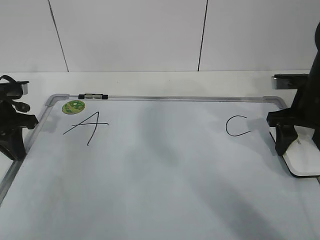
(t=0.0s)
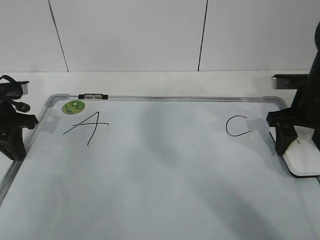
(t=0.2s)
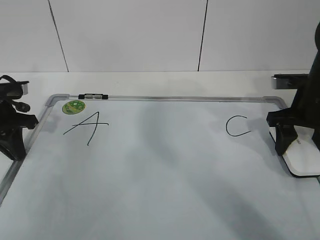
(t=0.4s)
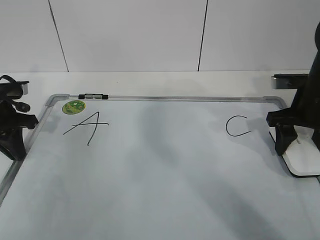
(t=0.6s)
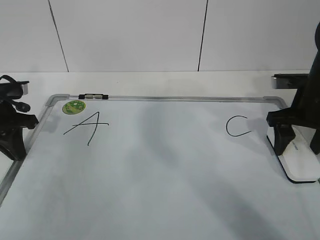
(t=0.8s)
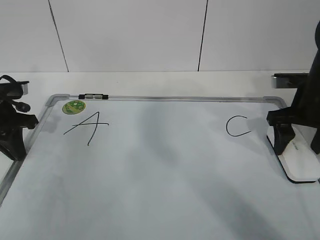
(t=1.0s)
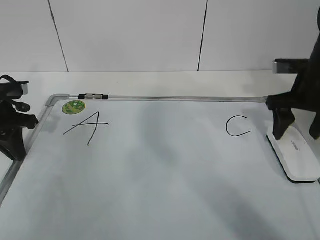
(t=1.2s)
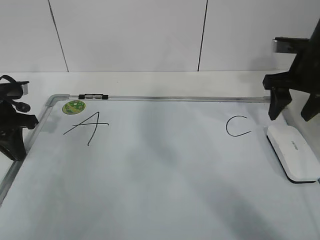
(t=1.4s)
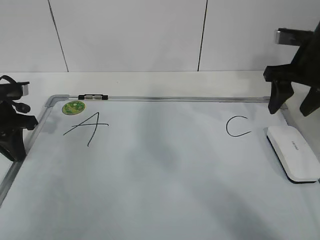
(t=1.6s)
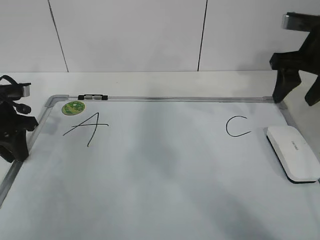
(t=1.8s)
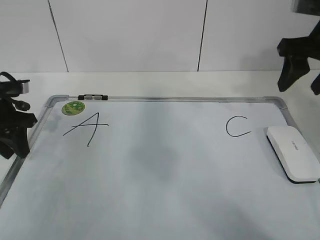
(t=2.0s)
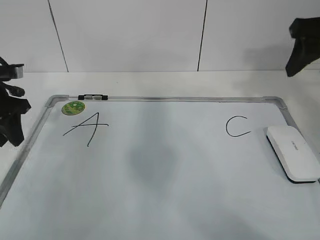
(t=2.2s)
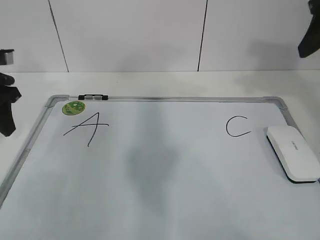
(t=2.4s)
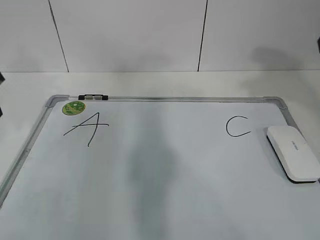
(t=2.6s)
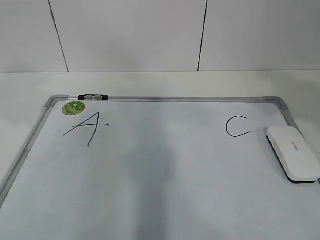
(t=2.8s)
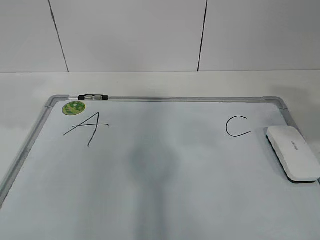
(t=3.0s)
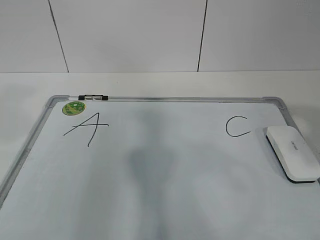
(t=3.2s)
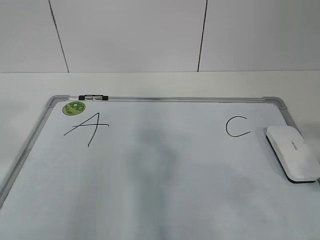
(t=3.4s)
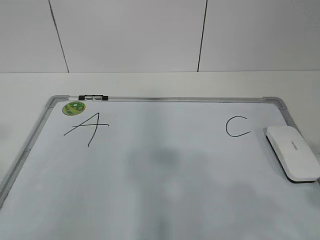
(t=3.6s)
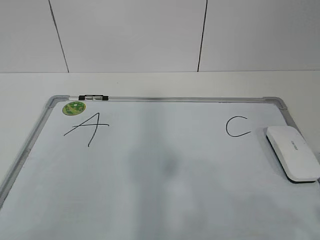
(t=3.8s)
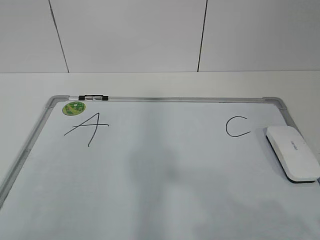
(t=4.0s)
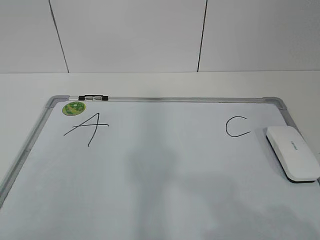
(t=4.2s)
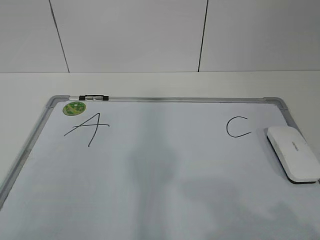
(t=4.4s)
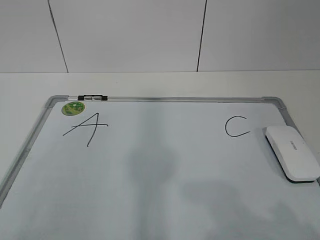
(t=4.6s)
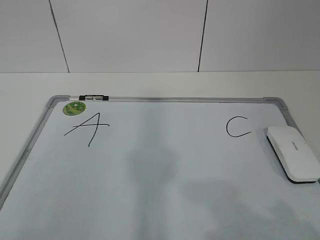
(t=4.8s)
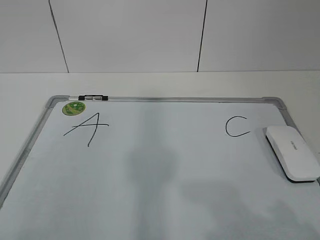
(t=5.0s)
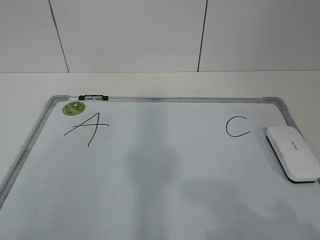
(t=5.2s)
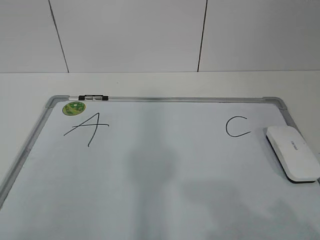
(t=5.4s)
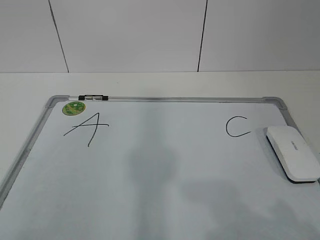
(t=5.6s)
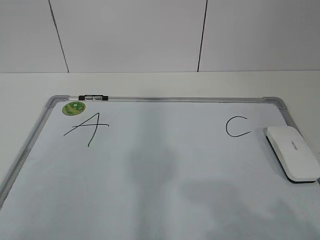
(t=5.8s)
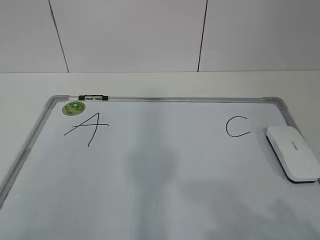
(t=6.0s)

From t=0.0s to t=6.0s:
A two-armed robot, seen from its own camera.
Task of the whole recording: pick up the eraser on the blackboard and erase the letter "B".
From t=0.0s to t=1.6s: The right gripper is displaced upward by roughly 5 cm, and opens, then closes again.
From t=1.6s to t=3.0s: The right gripper heads backward and upward, covering some 25 cm. Meanwhile the left gripper moves upward and backward, some 25 cm, and opens.
From t=3.0s to t=4.4s: The right gripper travels backward and downward by about 20 cm.
From t=4.4s to t=6.0s: Both grippers stay put.
